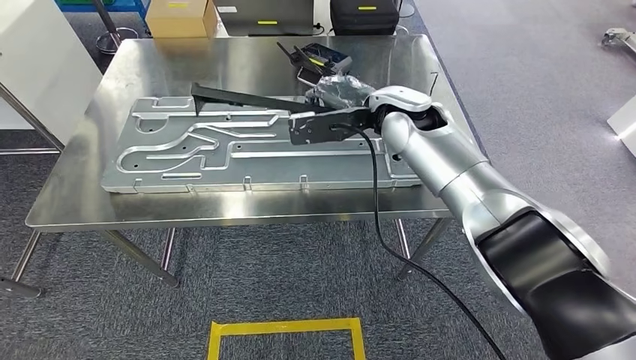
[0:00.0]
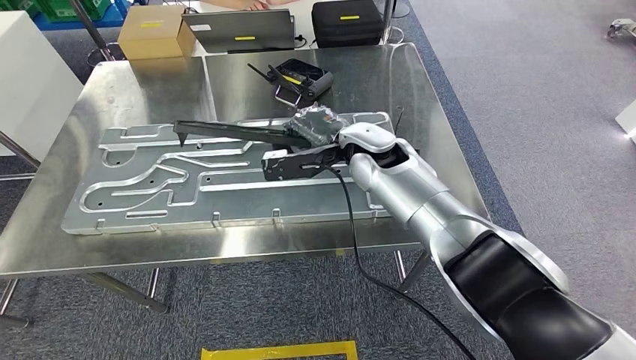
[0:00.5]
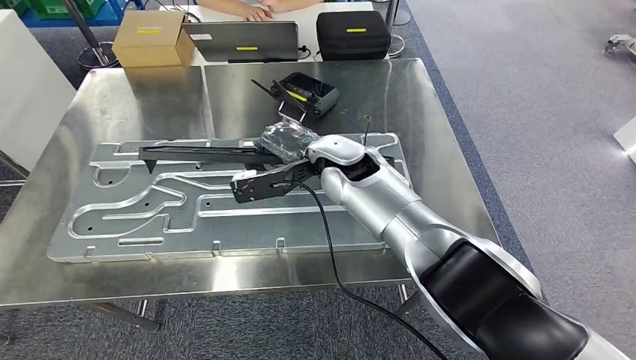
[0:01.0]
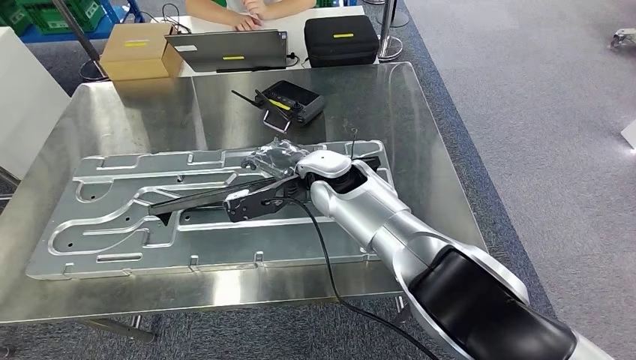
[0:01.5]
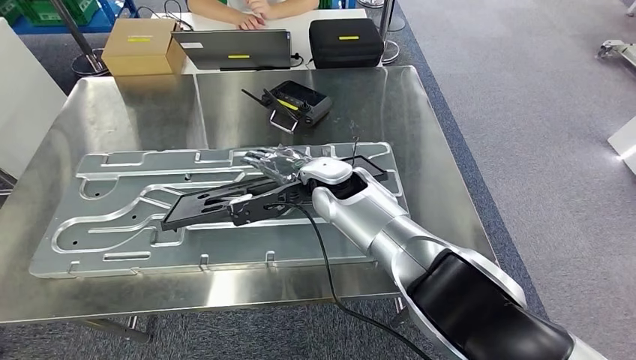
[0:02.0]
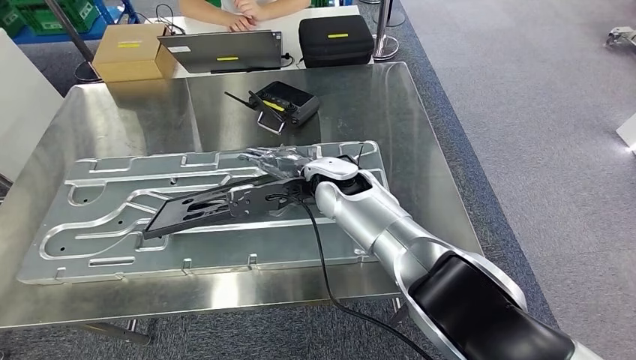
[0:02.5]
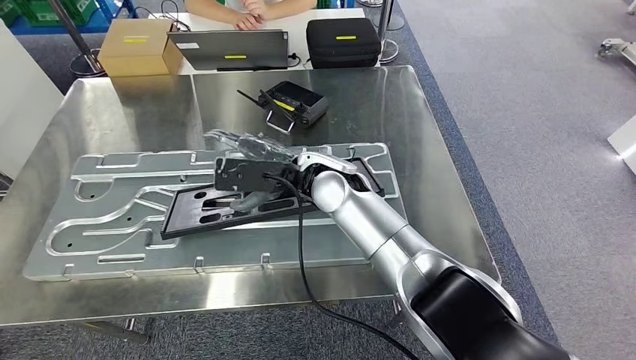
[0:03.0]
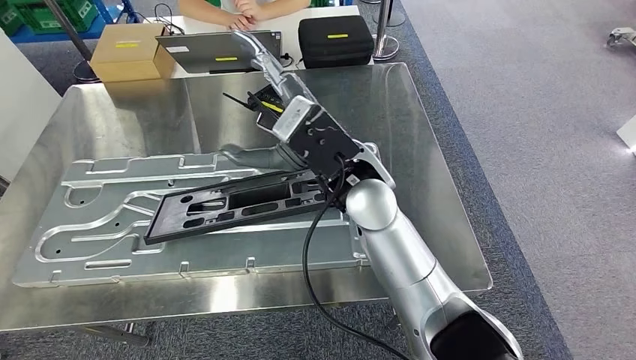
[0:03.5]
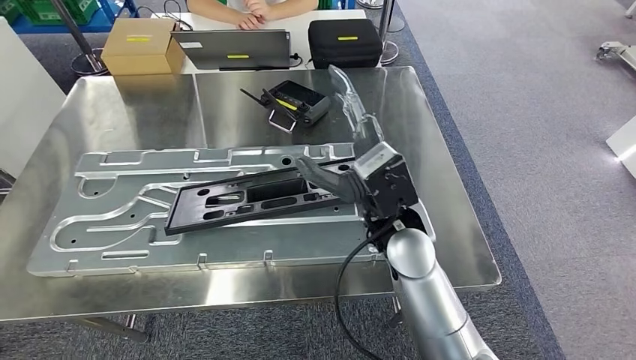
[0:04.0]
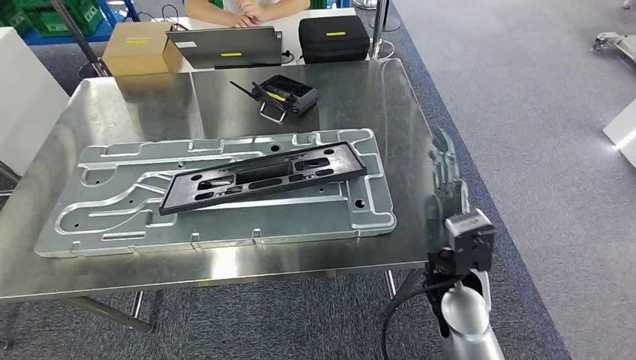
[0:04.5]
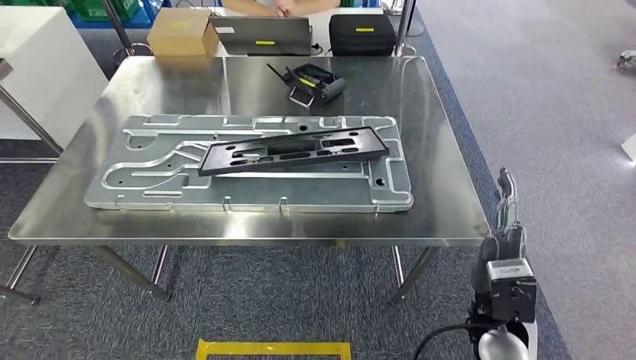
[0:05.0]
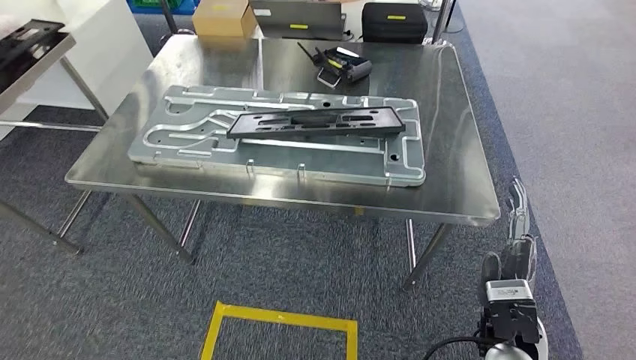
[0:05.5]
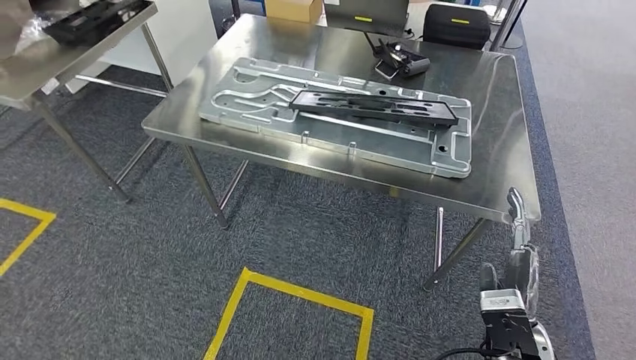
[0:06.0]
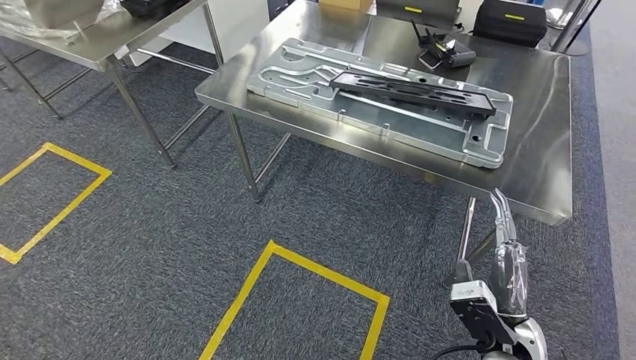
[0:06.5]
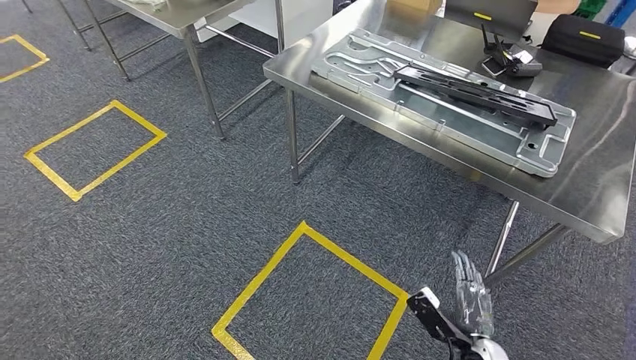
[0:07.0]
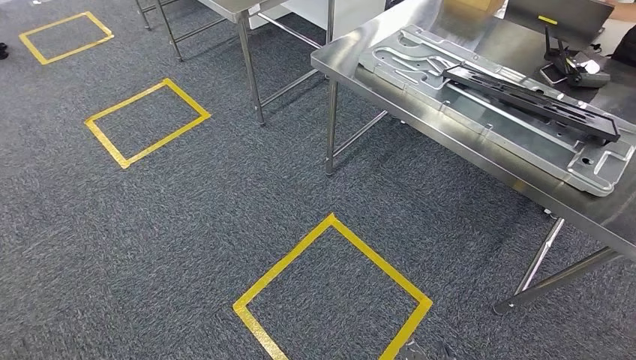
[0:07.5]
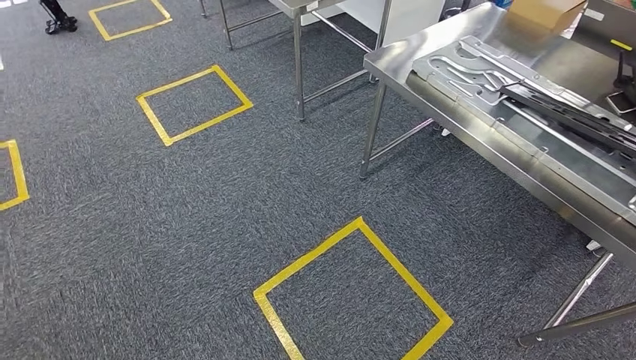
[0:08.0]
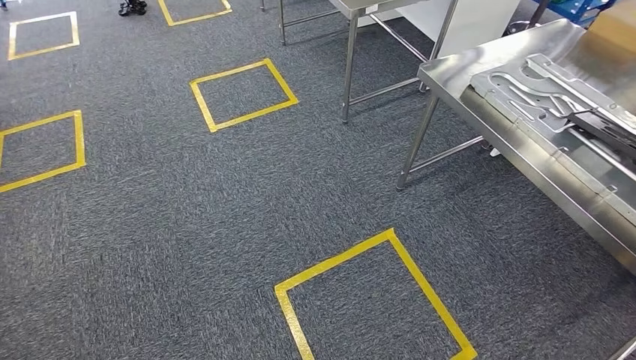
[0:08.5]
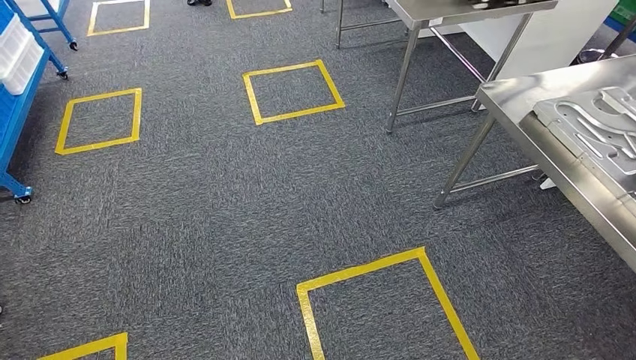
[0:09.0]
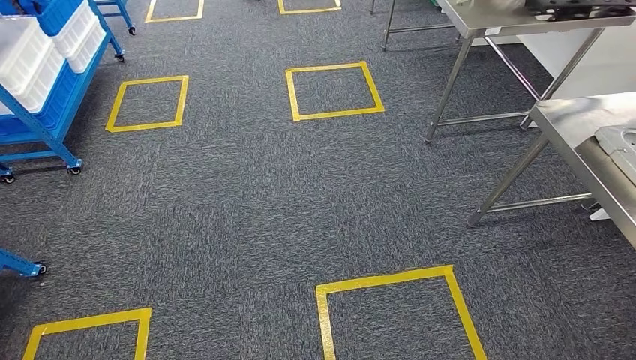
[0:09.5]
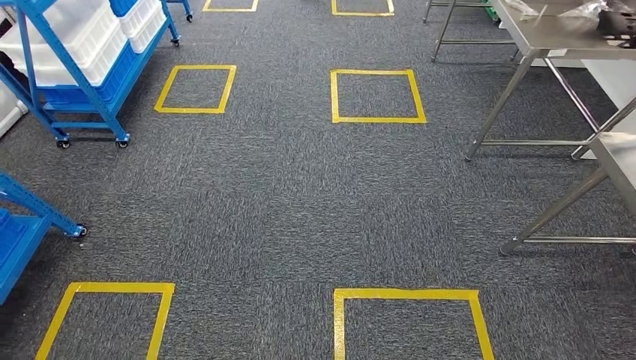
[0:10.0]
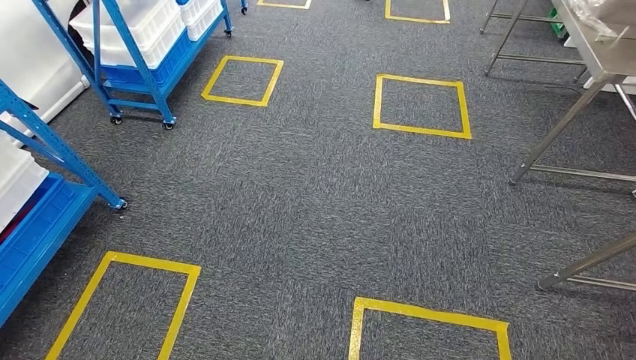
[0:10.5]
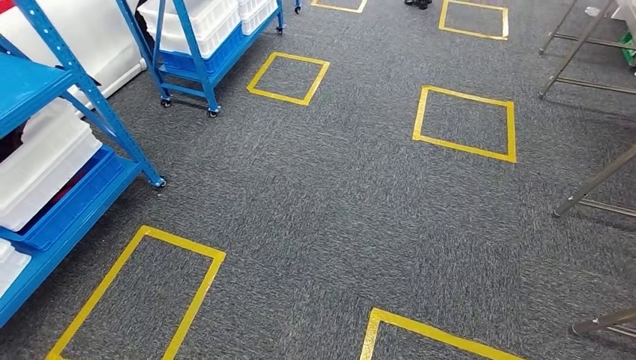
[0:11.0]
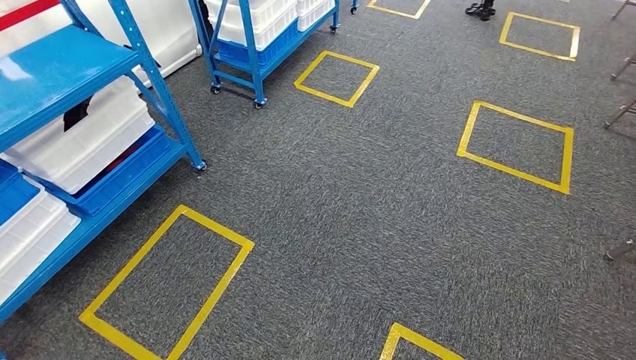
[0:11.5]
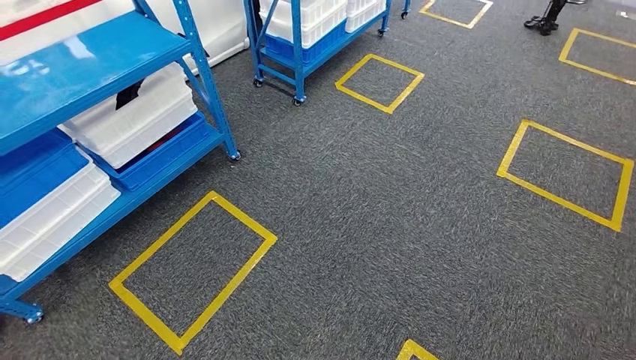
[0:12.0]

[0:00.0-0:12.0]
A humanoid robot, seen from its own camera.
Step, 0:00.0 to 0:05.0: Insert the large material into the corresponding slot on the workbench.
0:02.0 to 0:04.0: The right hand moves backward and to the right, approximately 15 cm.

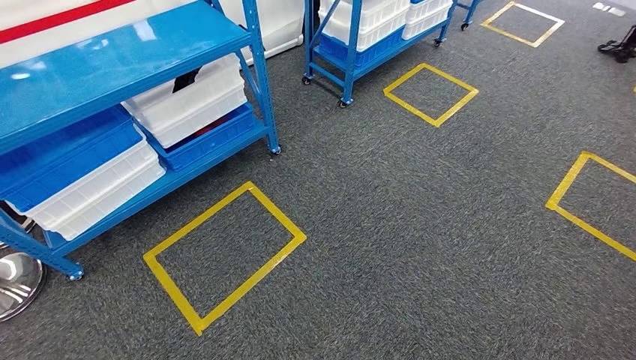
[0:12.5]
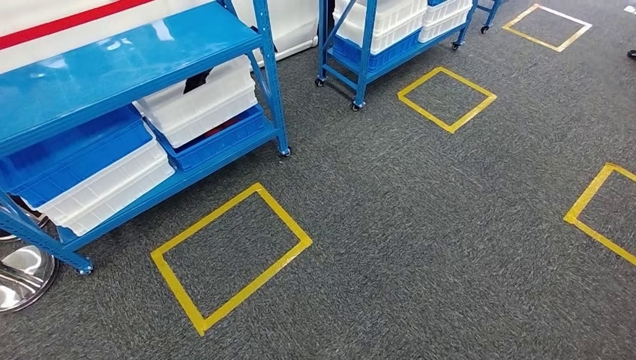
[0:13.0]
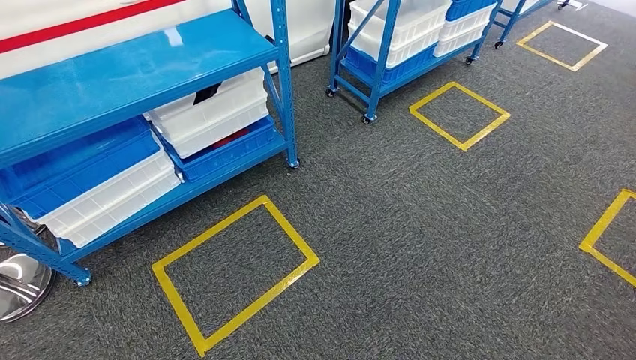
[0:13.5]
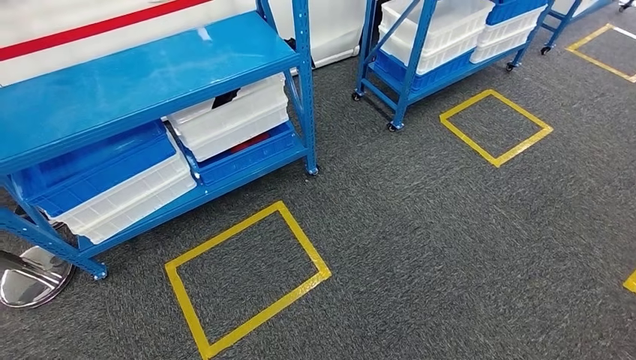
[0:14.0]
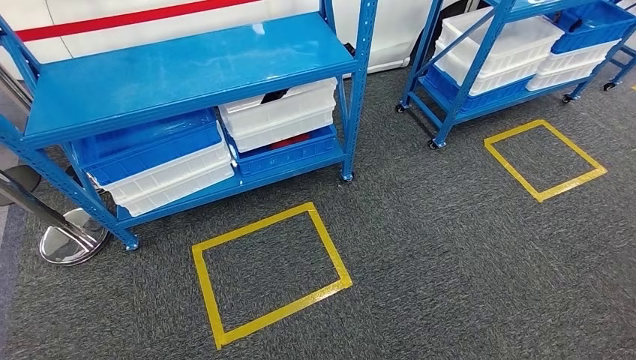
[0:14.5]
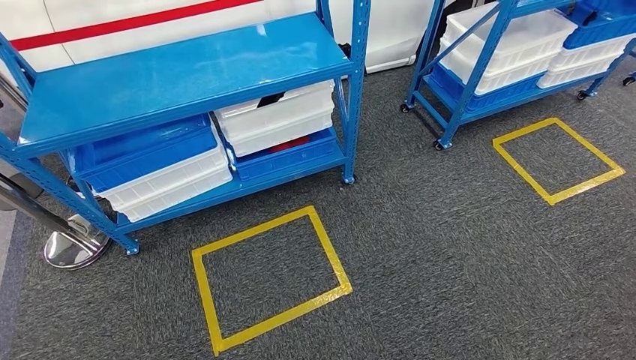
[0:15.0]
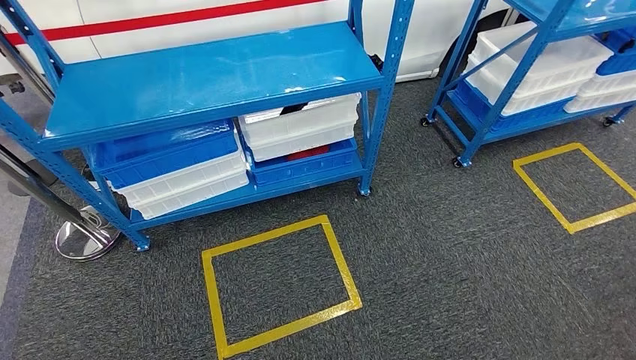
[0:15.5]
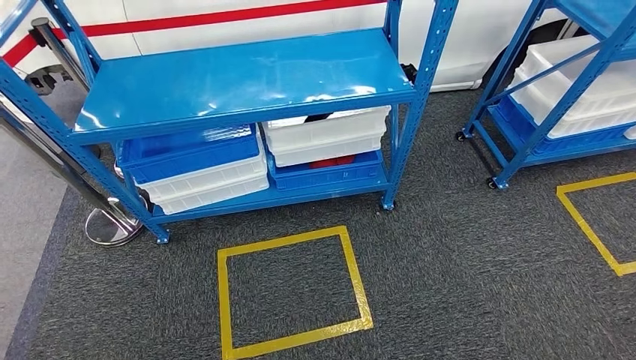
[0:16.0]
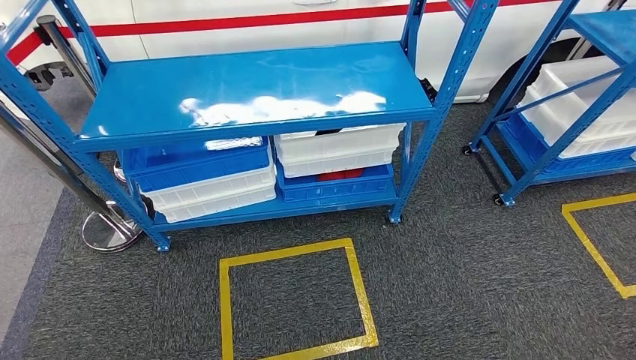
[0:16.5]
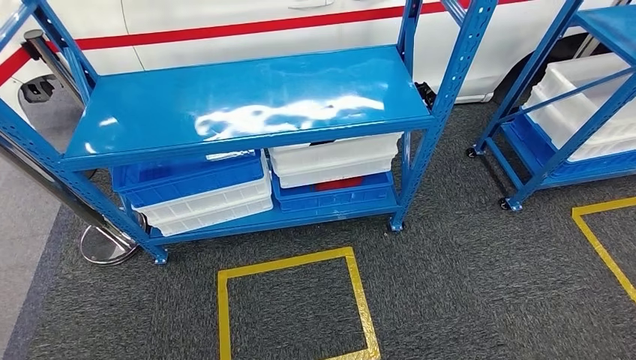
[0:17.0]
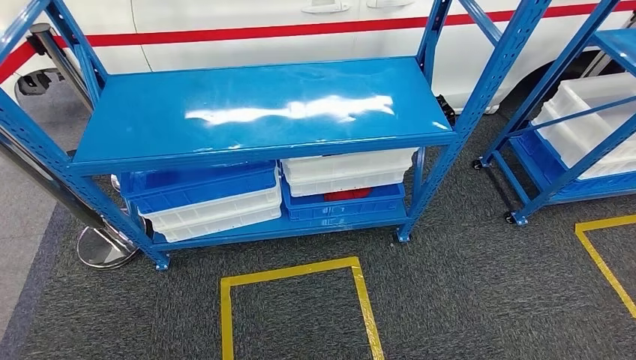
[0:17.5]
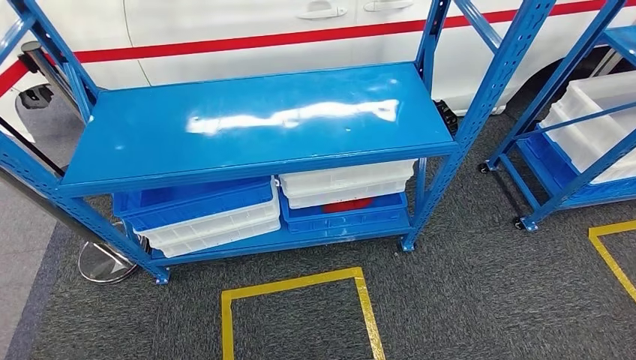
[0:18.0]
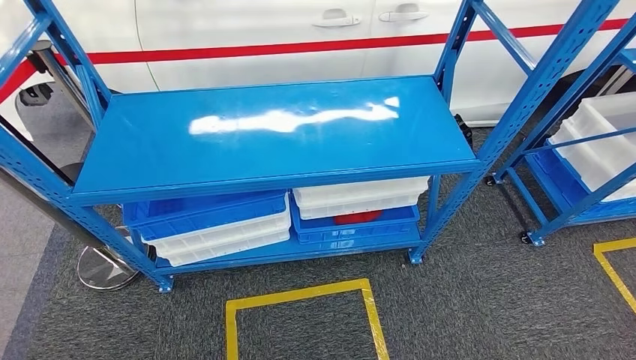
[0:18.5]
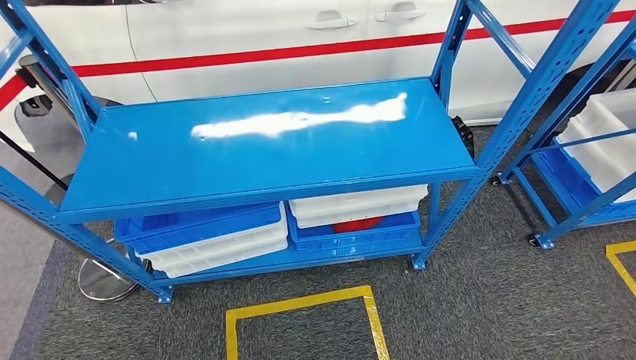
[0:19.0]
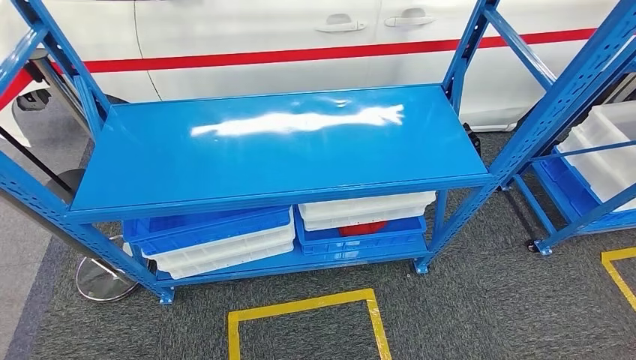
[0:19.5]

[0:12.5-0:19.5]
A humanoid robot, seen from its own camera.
Step, 0:12.5 to 0:19.5: Move to the initial position of the shelf.
